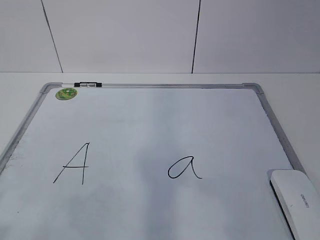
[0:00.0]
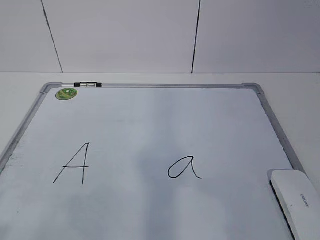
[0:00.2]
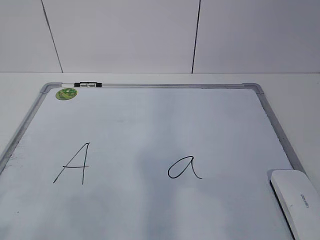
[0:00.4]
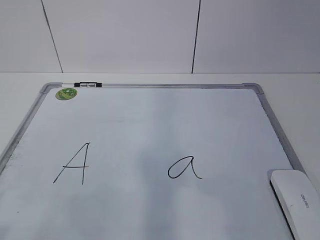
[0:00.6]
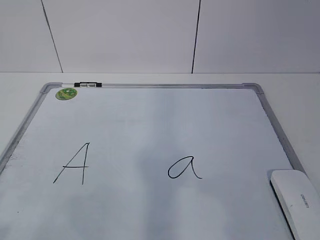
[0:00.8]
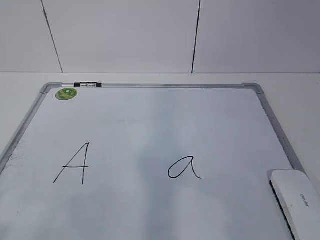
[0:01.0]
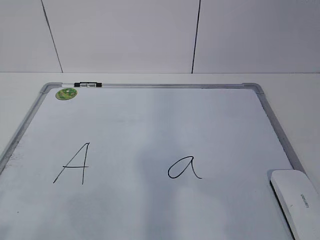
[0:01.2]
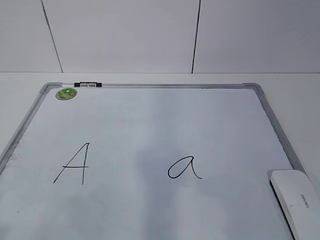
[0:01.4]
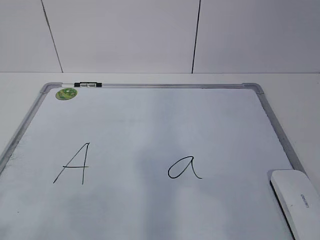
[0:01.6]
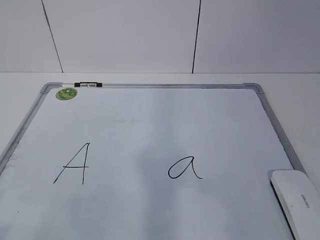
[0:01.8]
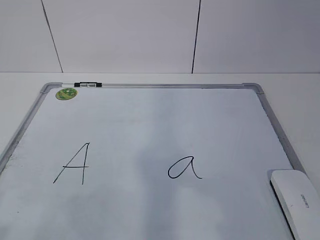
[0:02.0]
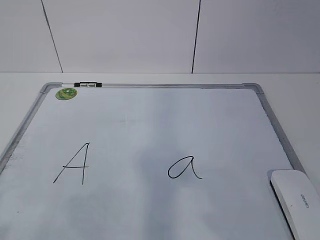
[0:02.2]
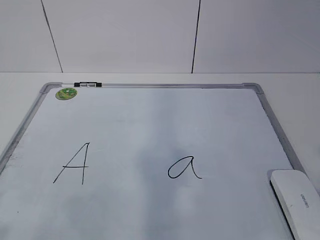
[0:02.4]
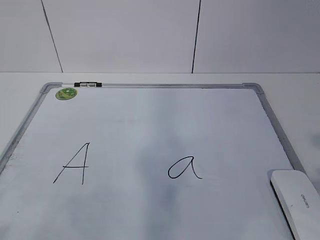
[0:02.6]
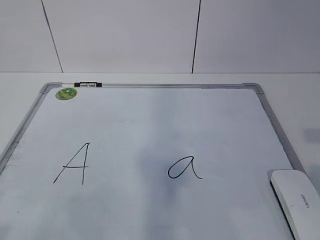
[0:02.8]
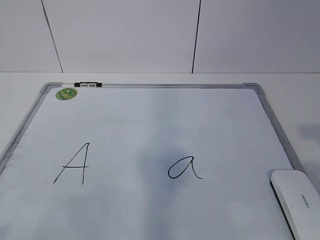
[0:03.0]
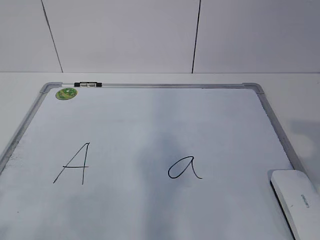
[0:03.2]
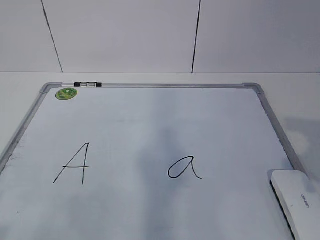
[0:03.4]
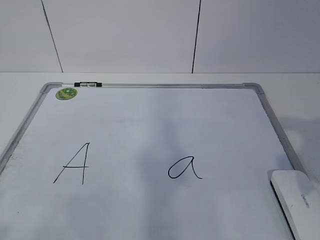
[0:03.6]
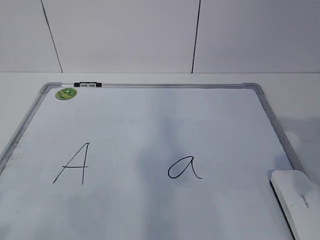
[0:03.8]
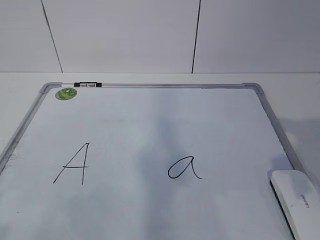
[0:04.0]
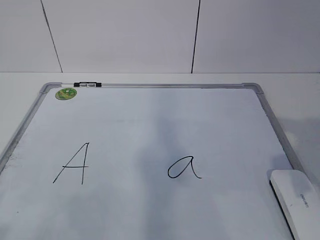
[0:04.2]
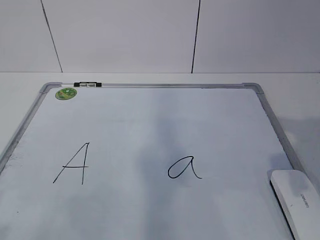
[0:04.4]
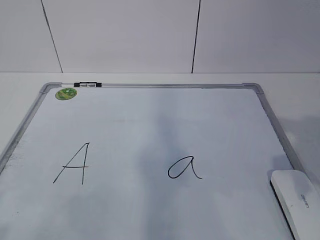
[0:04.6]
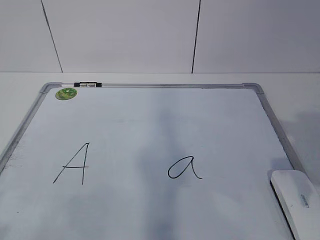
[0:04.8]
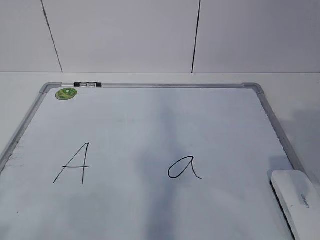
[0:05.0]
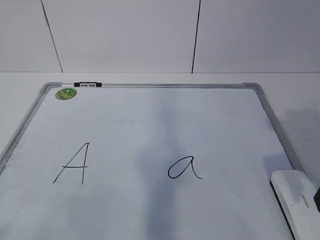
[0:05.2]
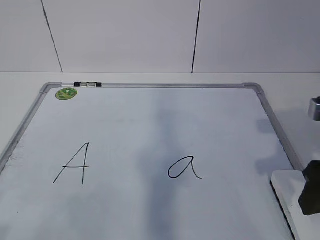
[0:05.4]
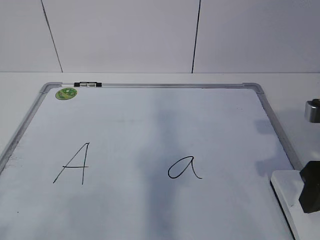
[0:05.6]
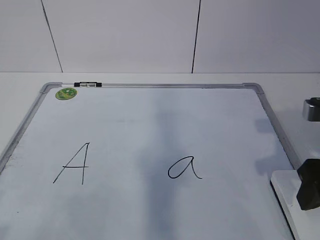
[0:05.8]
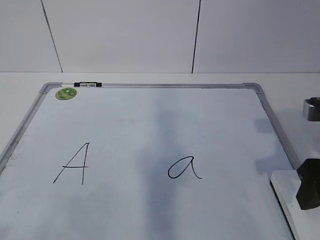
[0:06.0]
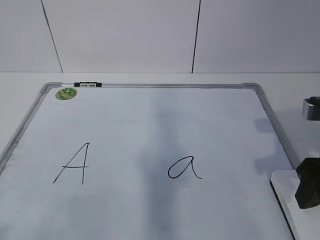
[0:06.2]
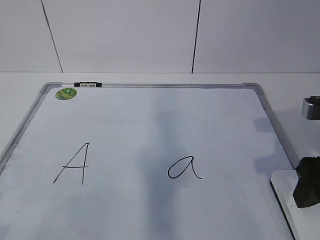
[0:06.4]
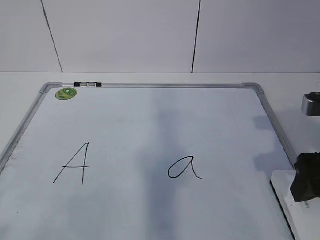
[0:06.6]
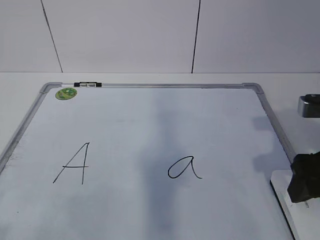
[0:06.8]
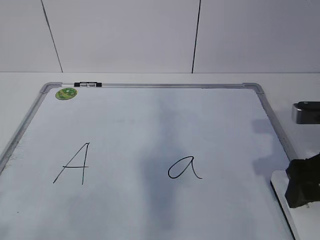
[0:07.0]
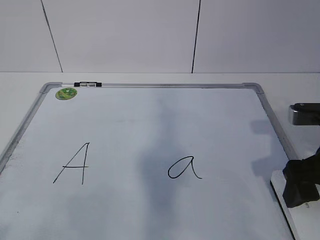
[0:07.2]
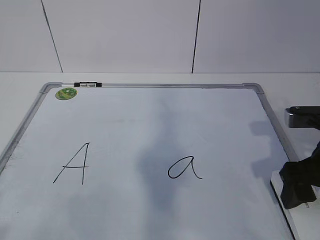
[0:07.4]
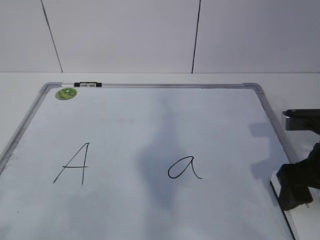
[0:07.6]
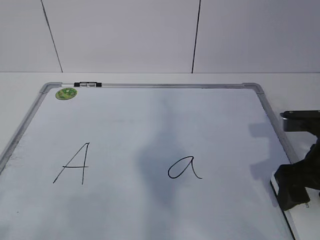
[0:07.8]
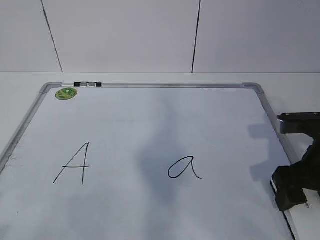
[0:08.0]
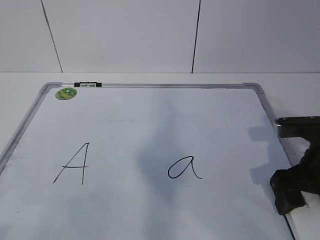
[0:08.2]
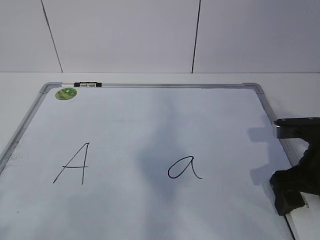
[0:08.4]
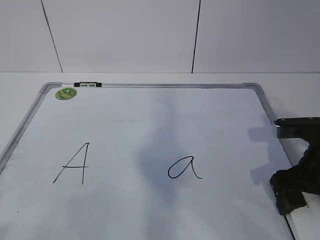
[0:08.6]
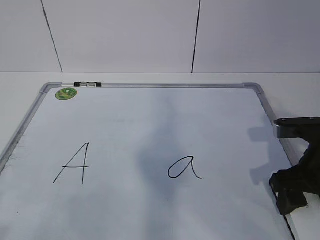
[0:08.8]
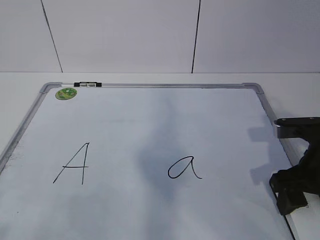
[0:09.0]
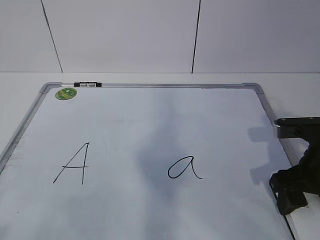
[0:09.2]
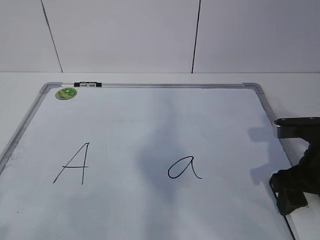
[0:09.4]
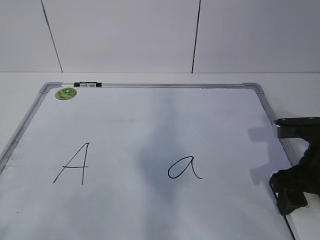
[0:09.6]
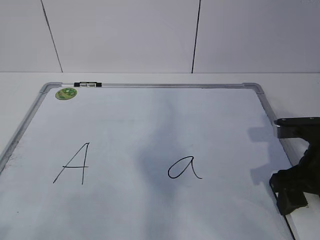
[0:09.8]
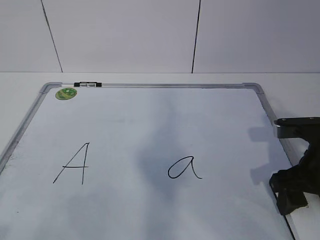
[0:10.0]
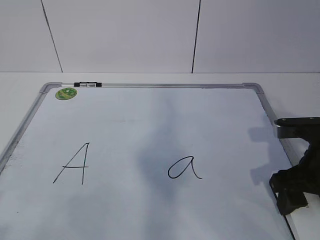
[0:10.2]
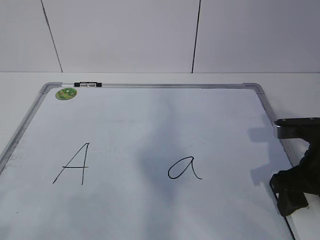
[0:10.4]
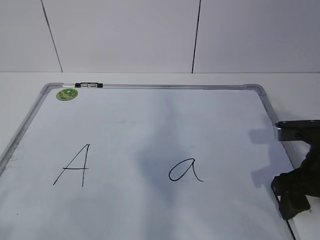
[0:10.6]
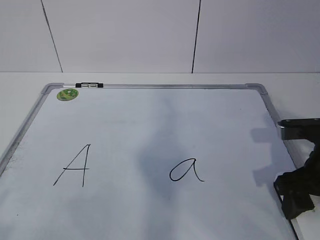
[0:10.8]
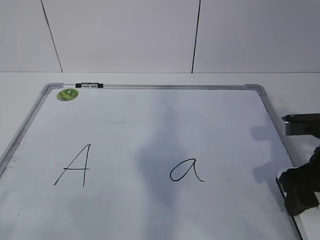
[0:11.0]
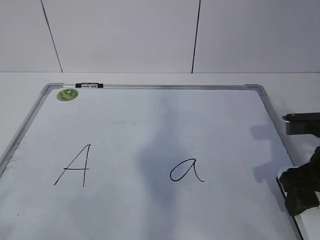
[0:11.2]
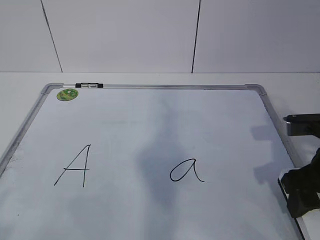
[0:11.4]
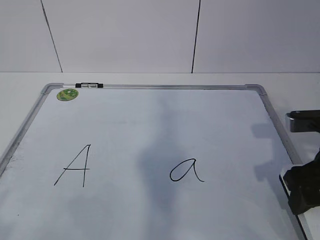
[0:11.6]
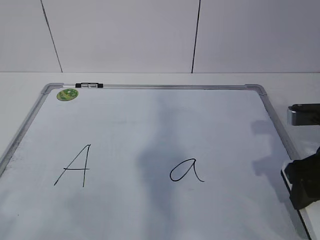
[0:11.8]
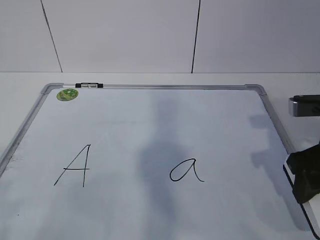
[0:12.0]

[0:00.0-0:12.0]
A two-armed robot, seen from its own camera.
Task of the whole recording: pick up the eraser on the blackboard and erase the letter "a".
Step, 0:00.0 to 0:07.2: Grab the eraser with your right hand.
0:04.4 to 0:06.0: The right gripper is displaced forward and downward by approximately 10 cm.
0:06.0 to 0:07.6: The right gripper opens.
0:07.6 to 0:09.0: The right gripper closes its fingers.
0:09.0 to 0:10.4: Both grippers stay about where they are.
0:10.4 to 0:12.0: The right gripper heads upward, covering about 5 cm.

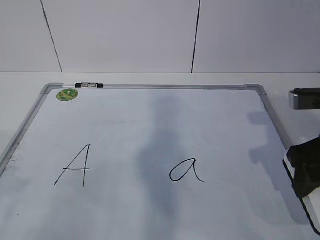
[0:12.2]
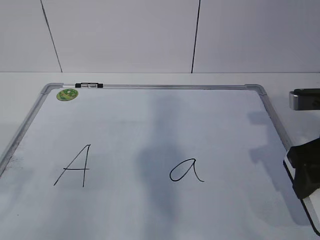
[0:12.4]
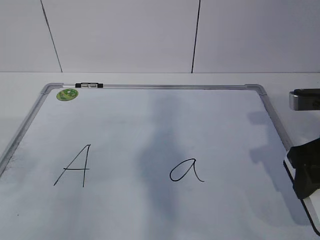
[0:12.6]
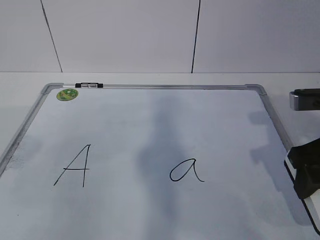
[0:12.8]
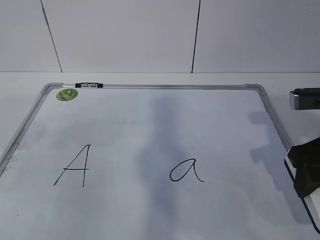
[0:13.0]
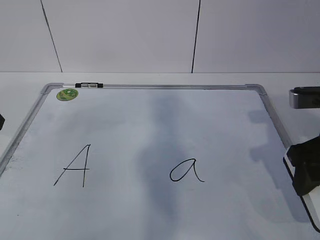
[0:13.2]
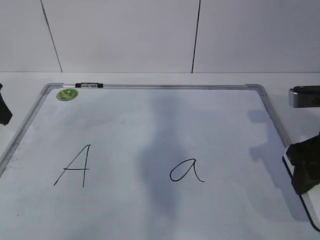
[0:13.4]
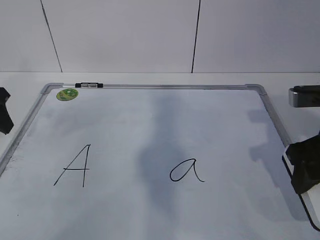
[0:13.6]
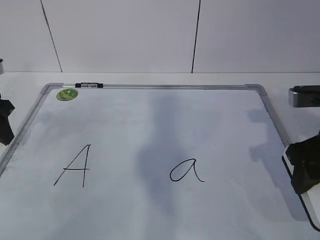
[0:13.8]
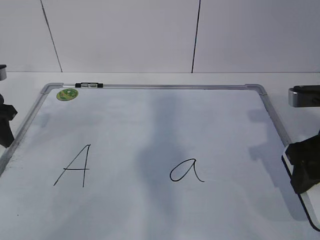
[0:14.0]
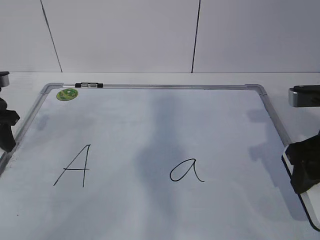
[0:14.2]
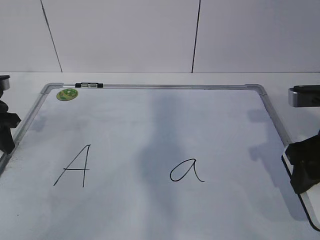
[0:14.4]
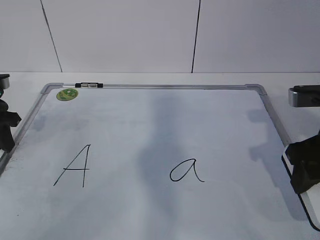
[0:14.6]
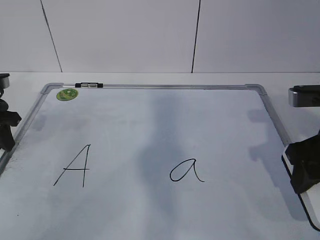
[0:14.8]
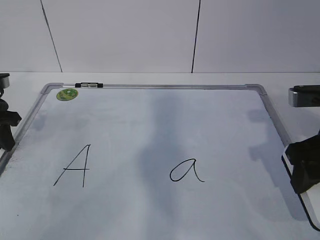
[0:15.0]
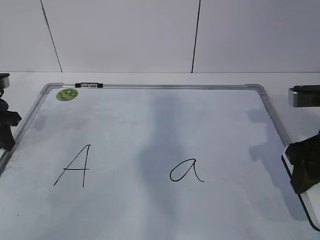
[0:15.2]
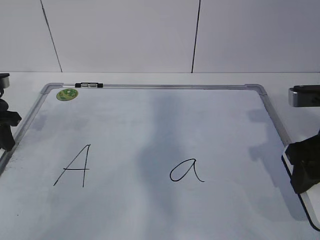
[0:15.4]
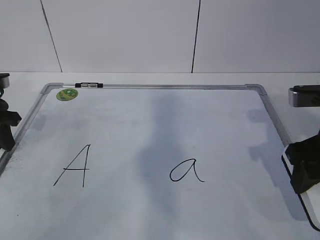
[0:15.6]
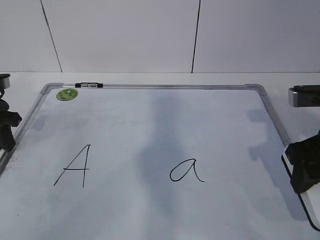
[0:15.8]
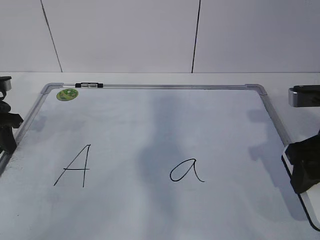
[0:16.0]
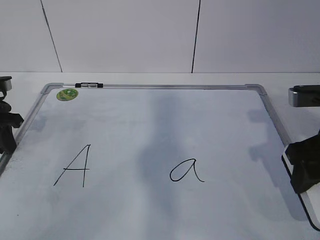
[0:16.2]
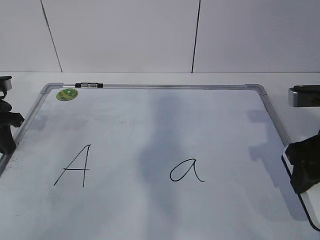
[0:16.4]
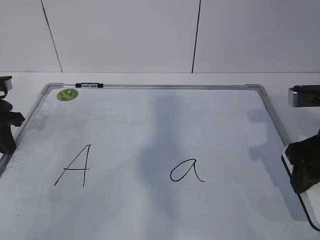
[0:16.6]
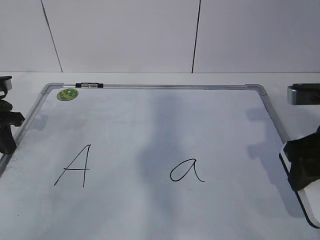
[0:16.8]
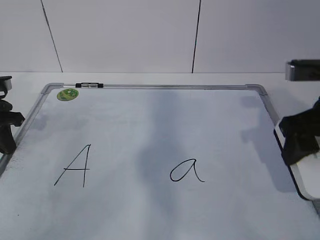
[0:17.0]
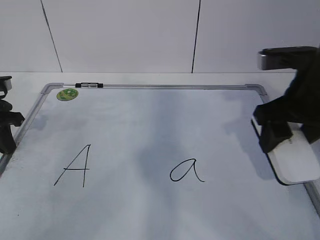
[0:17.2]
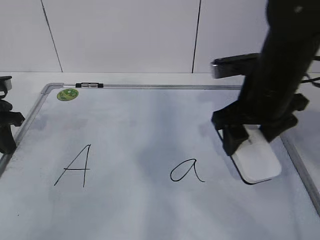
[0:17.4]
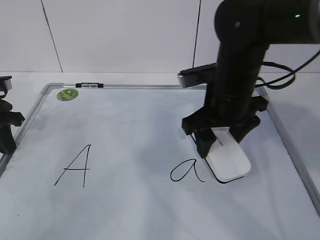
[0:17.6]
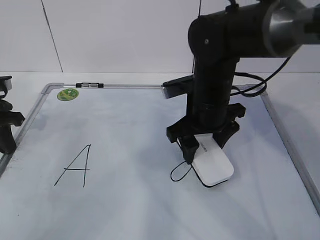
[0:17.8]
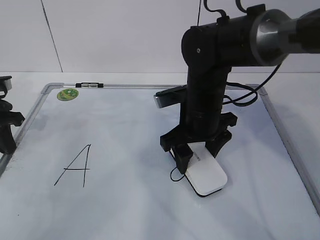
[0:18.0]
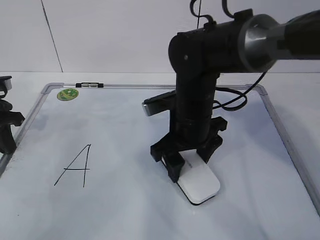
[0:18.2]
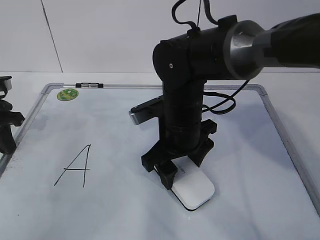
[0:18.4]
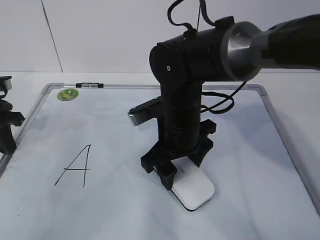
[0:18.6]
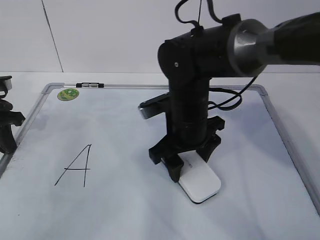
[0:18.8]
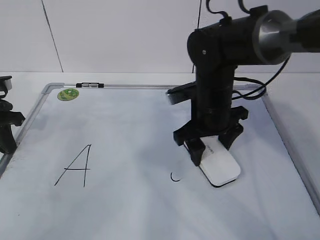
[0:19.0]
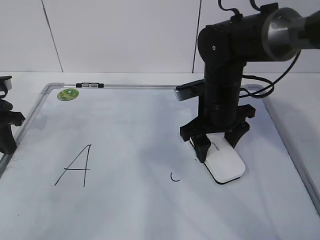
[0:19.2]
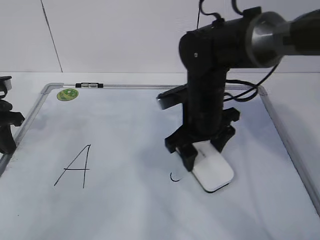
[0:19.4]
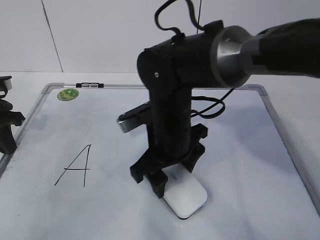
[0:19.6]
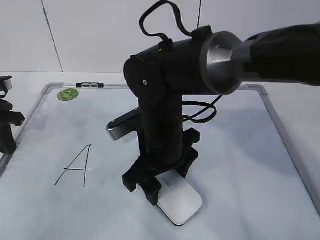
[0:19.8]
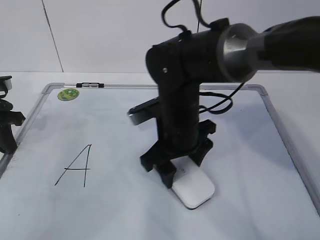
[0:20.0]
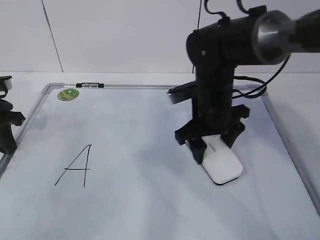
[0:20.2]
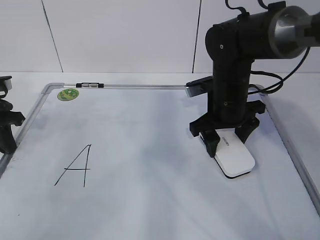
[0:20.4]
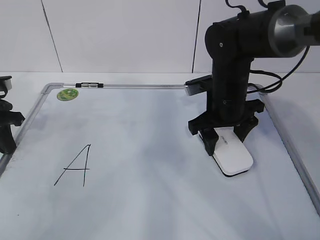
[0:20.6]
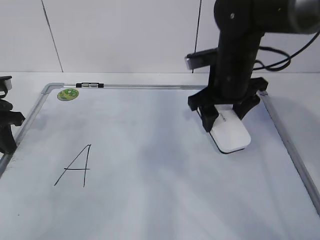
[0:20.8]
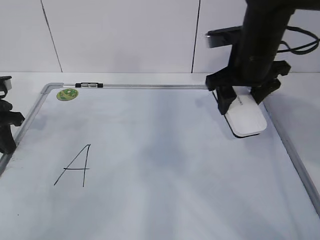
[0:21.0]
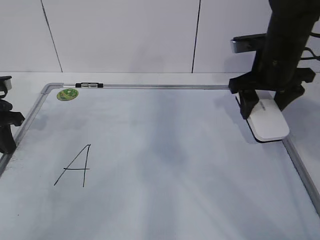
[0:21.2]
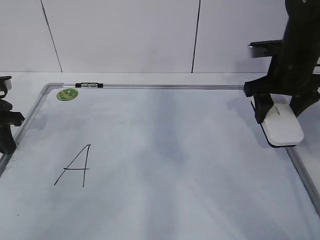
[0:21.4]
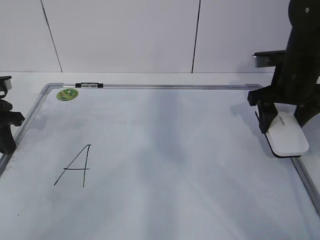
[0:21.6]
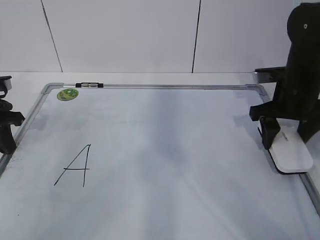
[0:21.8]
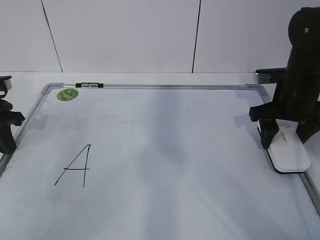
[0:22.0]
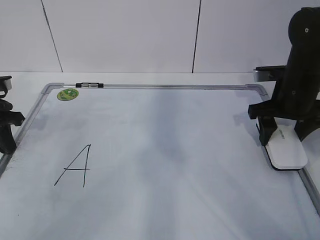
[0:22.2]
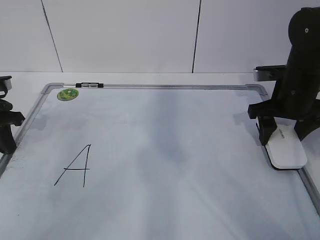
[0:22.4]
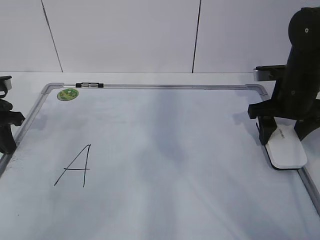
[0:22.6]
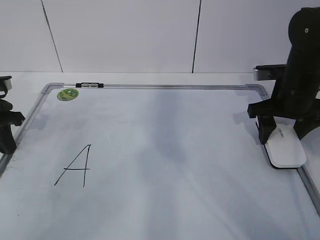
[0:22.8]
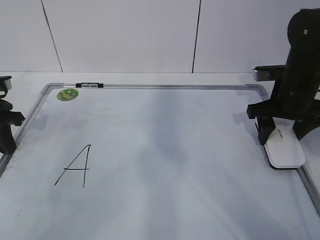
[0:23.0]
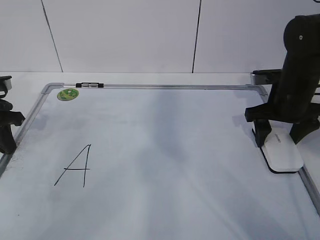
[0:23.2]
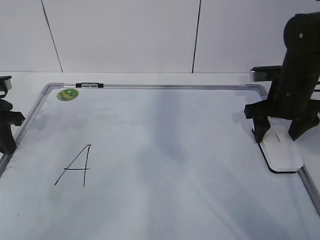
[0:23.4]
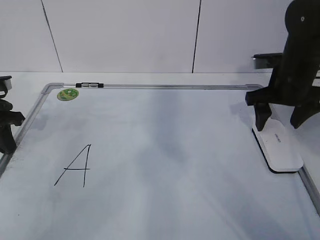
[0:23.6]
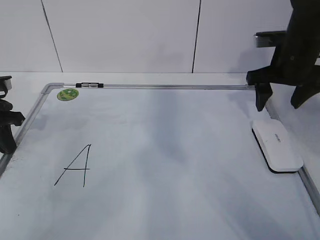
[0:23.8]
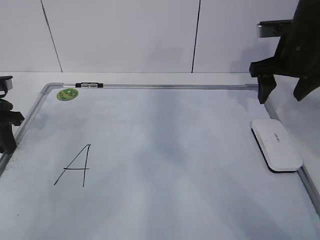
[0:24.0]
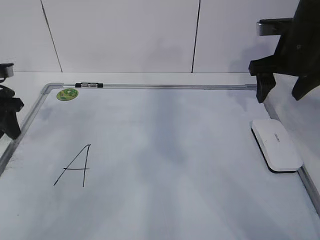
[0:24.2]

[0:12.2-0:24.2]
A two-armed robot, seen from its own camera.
Task of the whole recording: pick up the eraser on the blackboard and erase the letter "a".
Step, 0:13.8 to 0:17.0: Erase the letter a with your right hand.
Step, 0:17.2 to 0:19.2: Put down the eraser with your right hand.
0:12.2 to 0:13.8: The left gripper travels forward by some 30 cm.
0:13.8 to 0:15.2: The left gripper closes its fingers.
0:16.6 to 0:18.2: The right gripper moves to the left and forward, some 20 cm.
0:18.2 to 0:19.8: The right gripper shifts by roughly 5 cm.
0:19.8 to 0:21.2: The right gripper shifts approximately 20 cm to the right and forward.
0:21.2 to 0:22.6: The right gripper moves about 5 cm.
0:22.6 to 0:24.2: The left gripper opens; the right gripper moves upward, approximately 5 cm, and opens.
